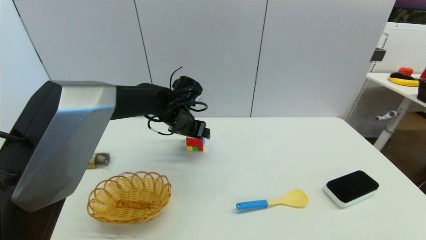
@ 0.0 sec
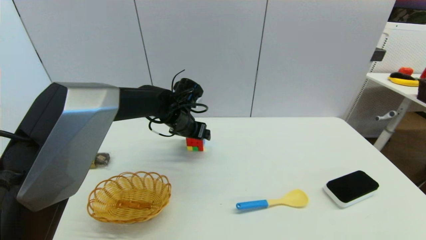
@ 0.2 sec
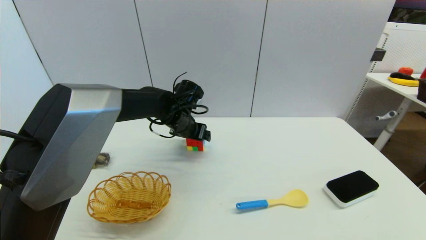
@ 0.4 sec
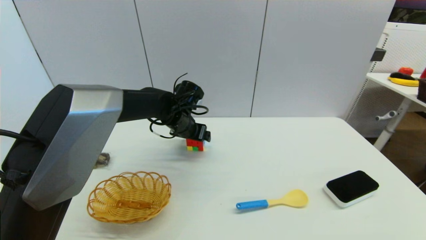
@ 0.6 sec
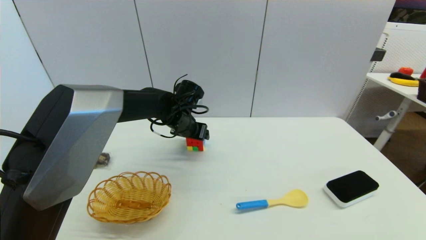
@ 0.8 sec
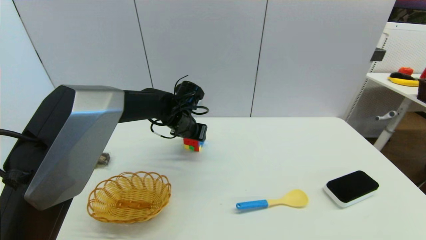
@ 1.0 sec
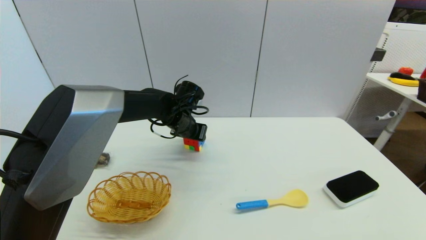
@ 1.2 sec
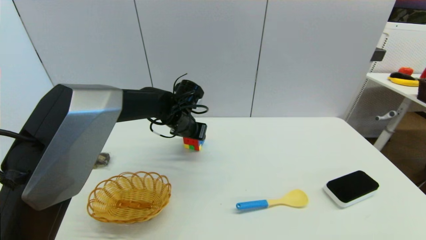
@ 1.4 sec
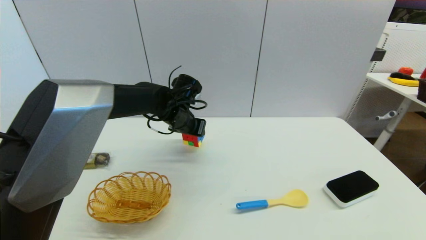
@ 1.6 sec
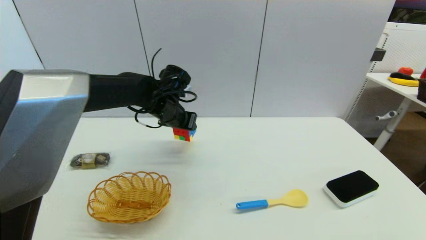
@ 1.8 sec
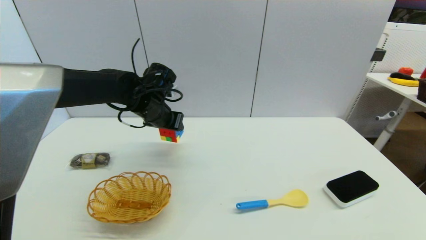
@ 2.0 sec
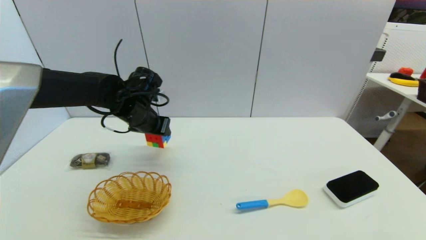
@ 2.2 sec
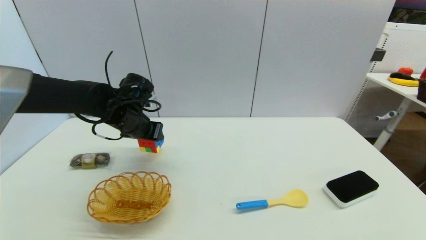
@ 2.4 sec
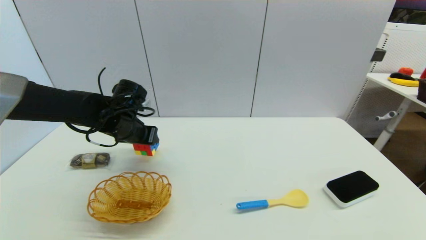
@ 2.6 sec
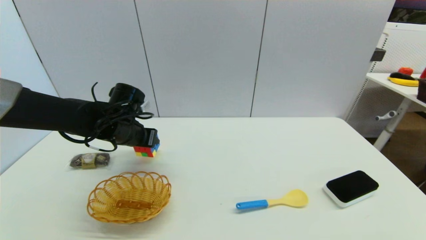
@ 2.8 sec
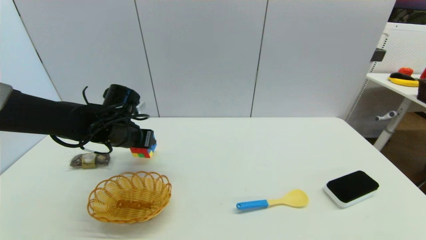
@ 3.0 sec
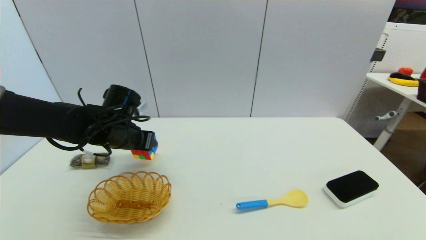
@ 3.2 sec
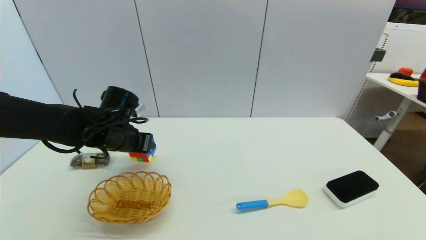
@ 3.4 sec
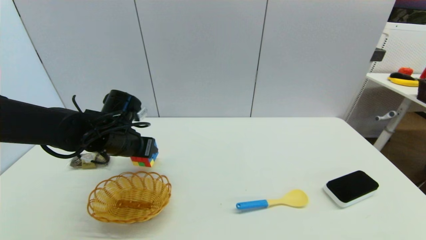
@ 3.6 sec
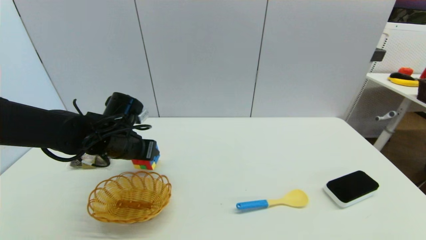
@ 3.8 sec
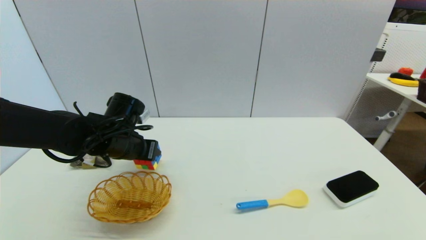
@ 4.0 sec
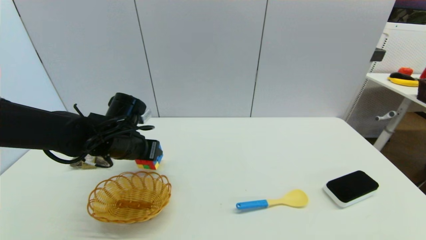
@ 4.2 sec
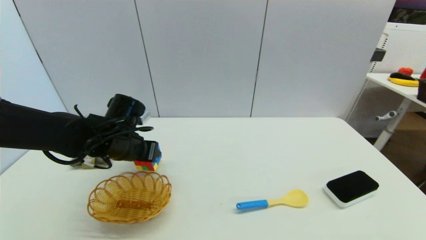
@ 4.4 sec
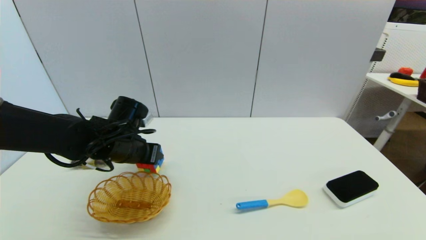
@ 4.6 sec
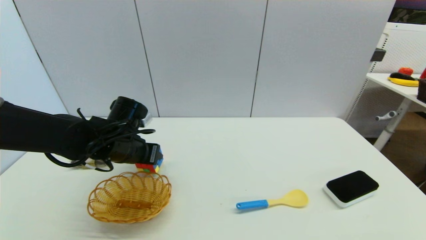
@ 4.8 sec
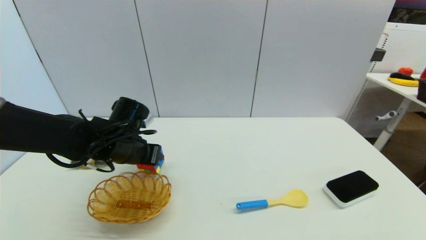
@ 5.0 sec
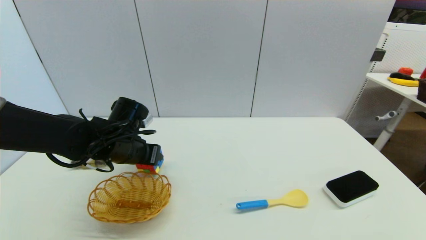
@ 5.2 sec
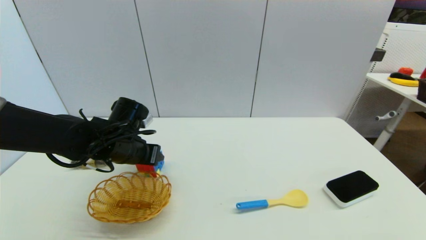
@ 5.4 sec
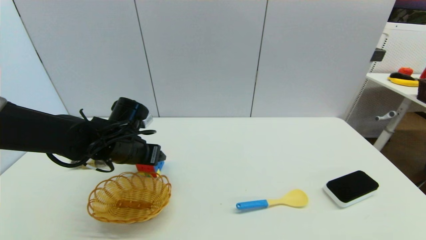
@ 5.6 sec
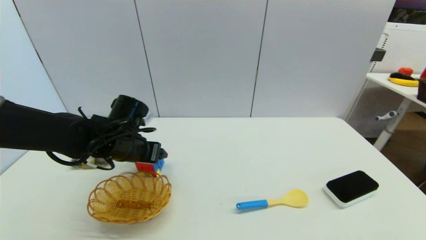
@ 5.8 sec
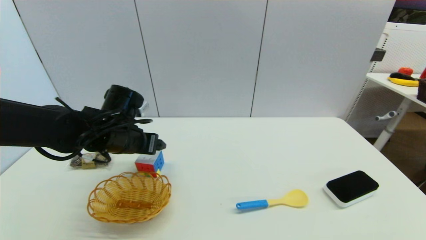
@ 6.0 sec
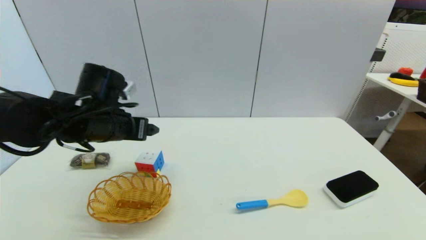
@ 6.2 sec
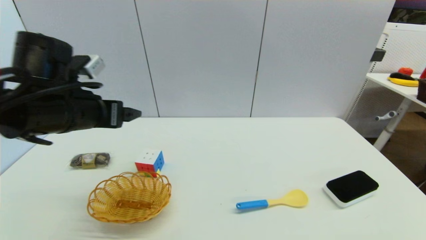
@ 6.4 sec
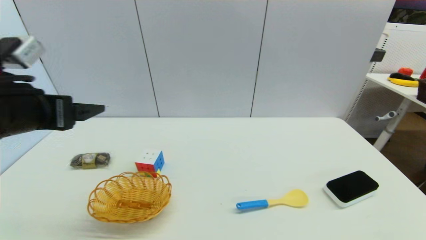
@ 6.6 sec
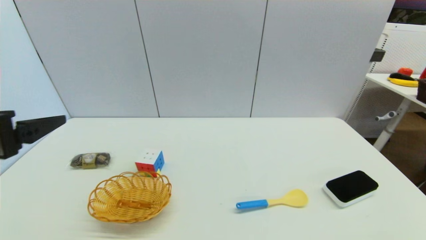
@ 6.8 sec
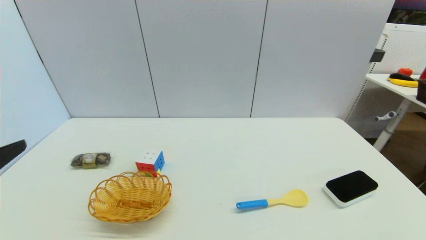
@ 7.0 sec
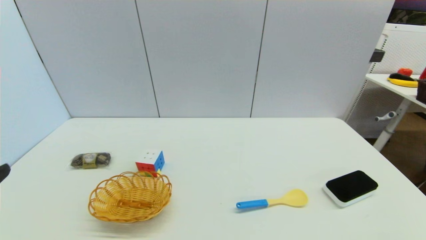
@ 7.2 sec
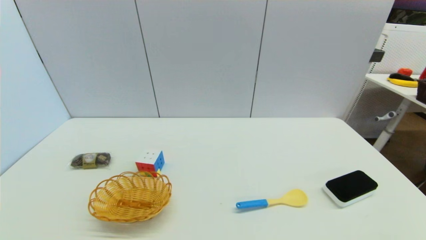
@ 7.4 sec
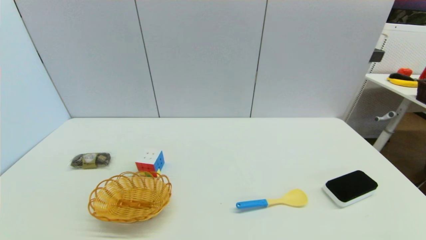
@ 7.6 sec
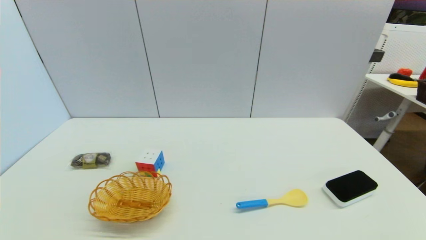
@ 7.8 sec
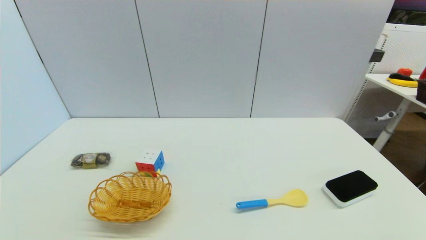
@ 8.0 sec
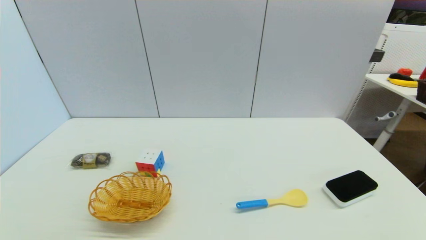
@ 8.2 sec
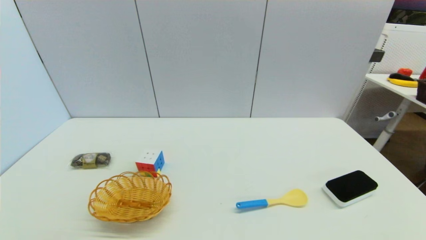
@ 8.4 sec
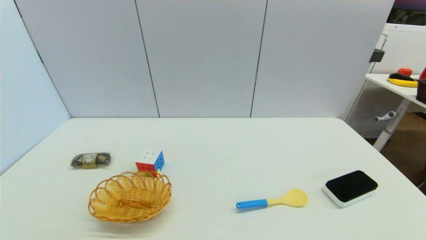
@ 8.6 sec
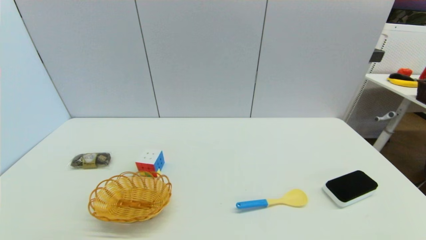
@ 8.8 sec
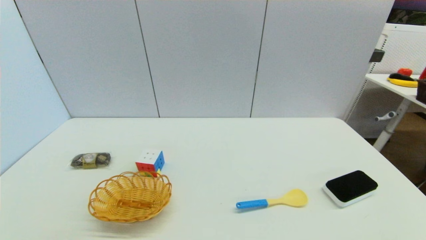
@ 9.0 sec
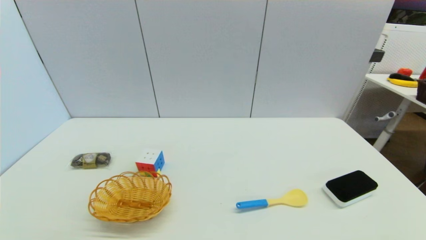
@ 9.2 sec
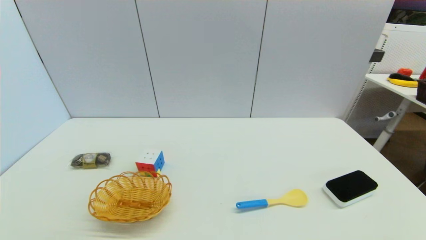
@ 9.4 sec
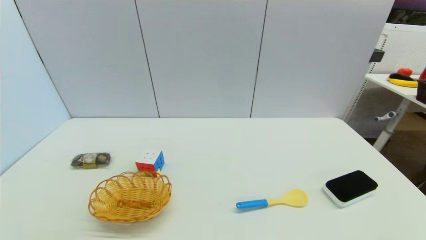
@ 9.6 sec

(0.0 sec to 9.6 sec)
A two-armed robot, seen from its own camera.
Step, 1.4 sec - 6.0 sec: Place the magic cube on the table with left gripper.
0.0 sec - 1.6 sec: The left gripper closes.
1.6 sec - 3.2 sec: The left gripper goes approximately 15 cm to the left and backward.
3.2 sec - 4.8 sec: The grippers stay close to where they were, moving slightly.
4.8 sec - 6.4 sec: The left gripper moves upward and backward, about 15 cm, and opens.
6.4 sec - 8.0 sec: The left gripper heads backward and downward, covering approximately 30 cm.
